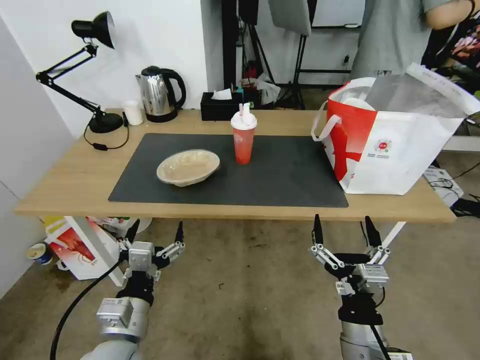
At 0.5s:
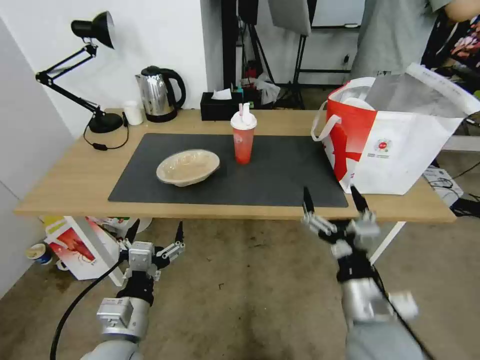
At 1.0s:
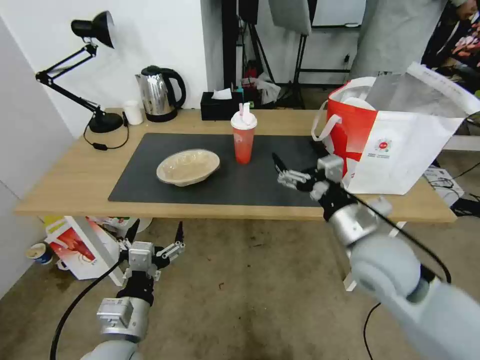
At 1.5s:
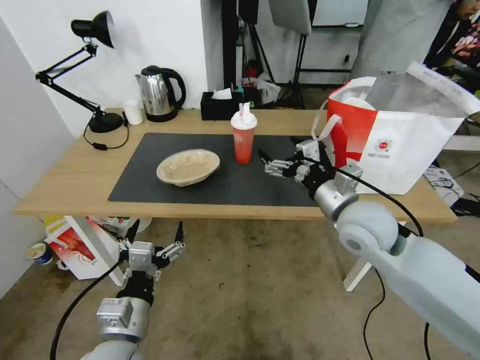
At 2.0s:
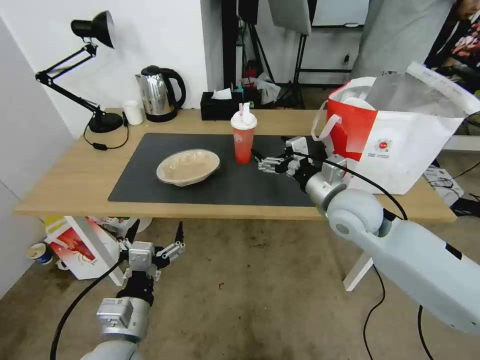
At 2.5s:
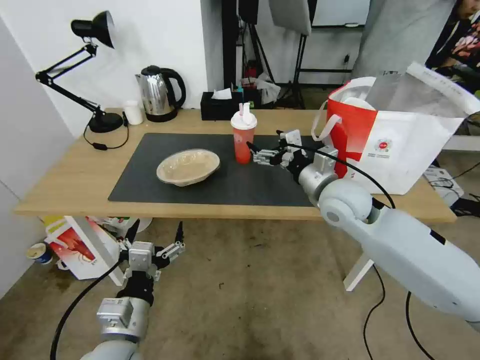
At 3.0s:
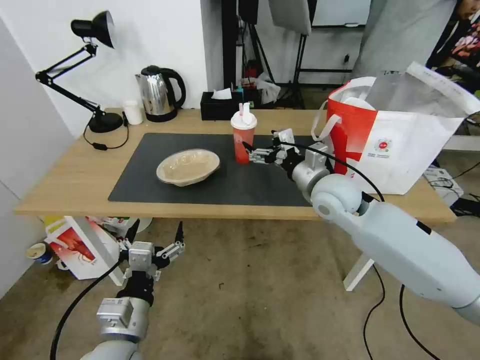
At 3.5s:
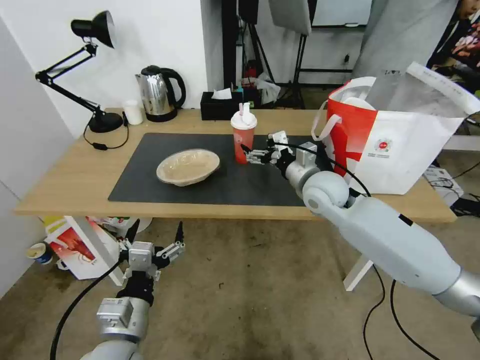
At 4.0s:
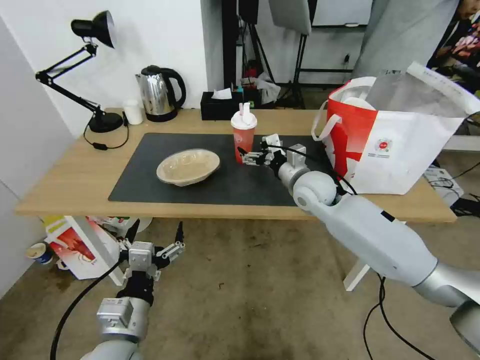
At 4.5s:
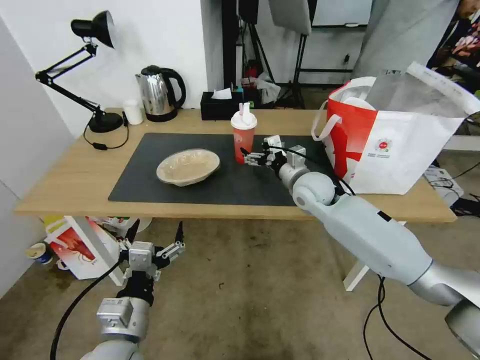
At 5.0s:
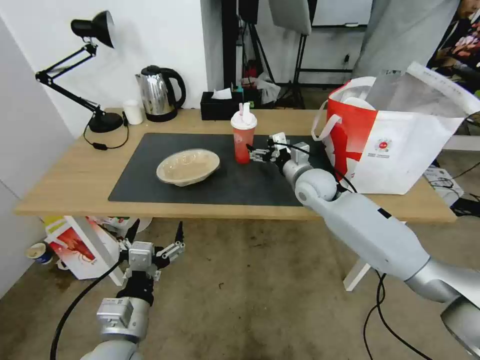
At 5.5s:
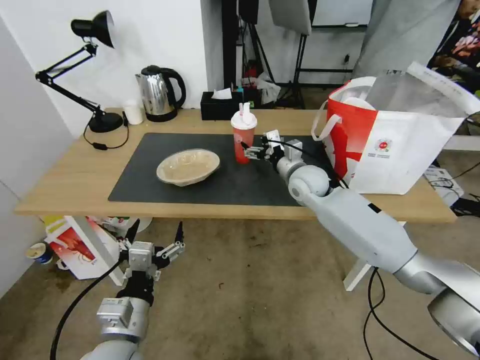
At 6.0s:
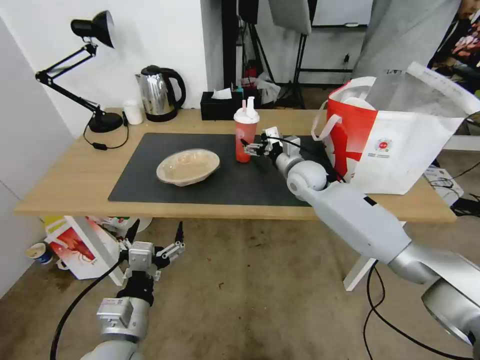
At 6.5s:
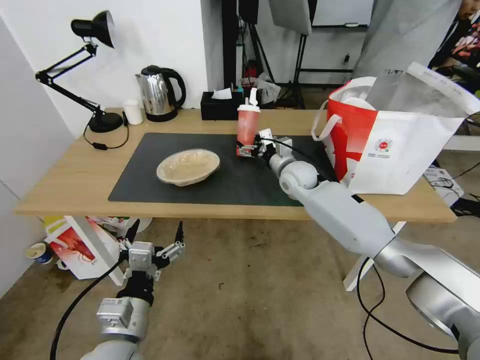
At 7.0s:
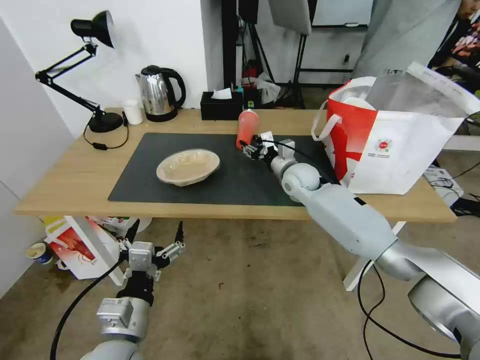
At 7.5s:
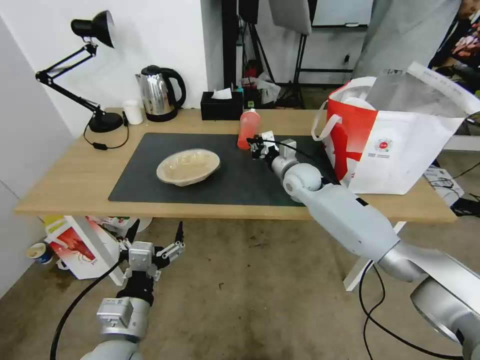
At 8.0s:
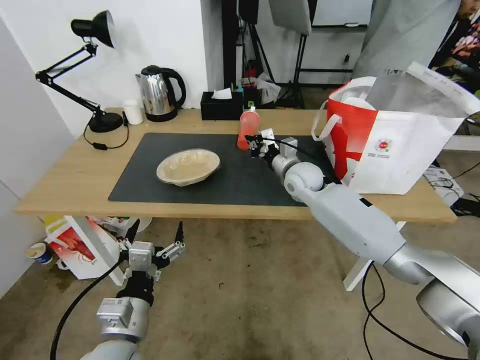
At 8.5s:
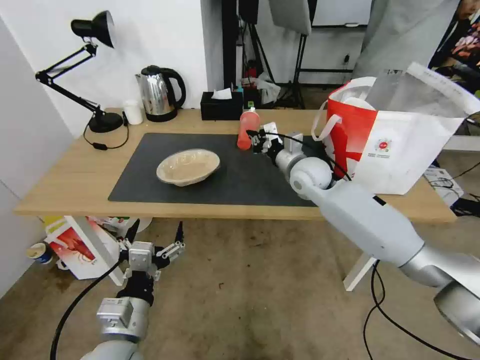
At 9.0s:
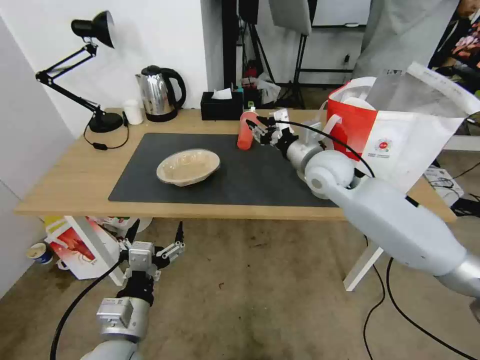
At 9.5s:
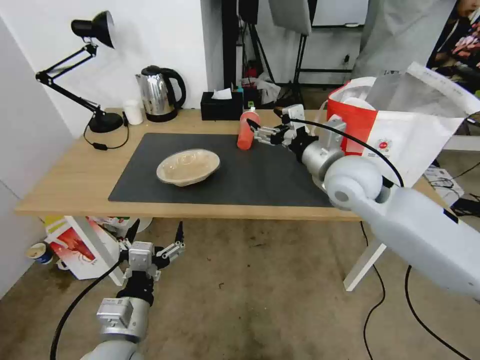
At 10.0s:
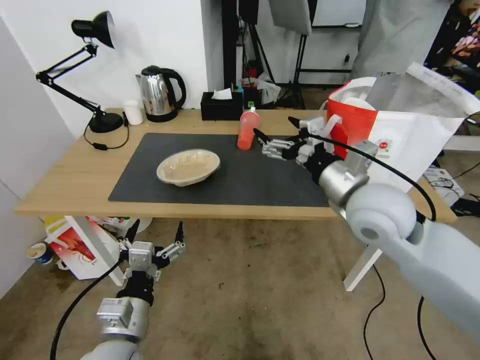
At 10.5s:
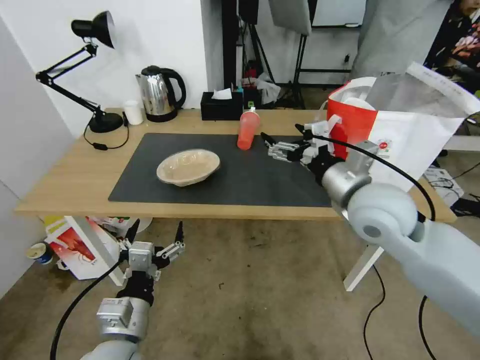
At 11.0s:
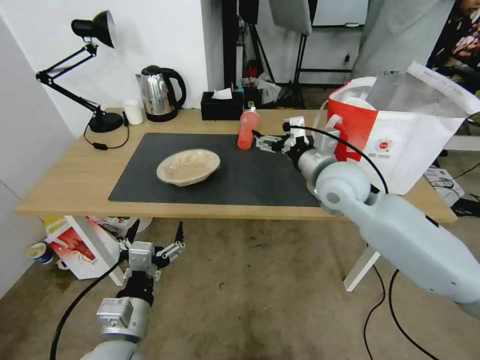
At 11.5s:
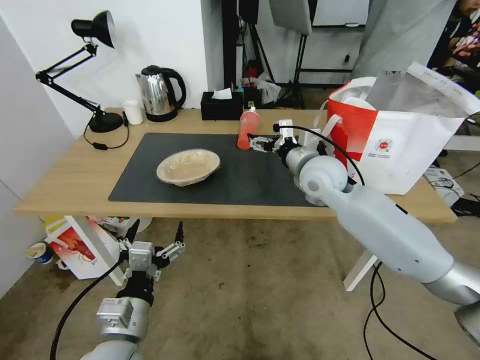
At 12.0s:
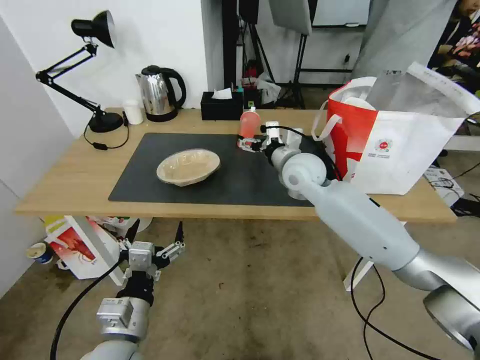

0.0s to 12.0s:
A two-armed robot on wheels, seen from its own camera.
Task of the whole recording: Pick up the trash from the table and place it into the takeout bag.
0.0s to 2.0s: The right gripper goes some 30 cm forward and upward.
2.0s to 4.0s: The right gripper moves forward, about 10 cm.
4.0s to 6.0s: The right gripper moves forward, approximately 5 cm.
6.0s to 8.0s: The right gripper closes its fingers.
8.0s to 10.0s: The right gripper is displaced backward and upward by some 25 cm, and opens.
10.0s to 12.0s: The right gripper goes approximately 20 cm forward and to the left.

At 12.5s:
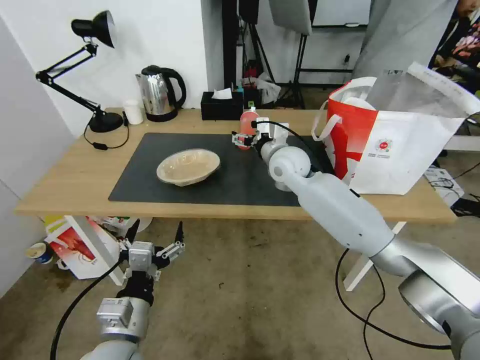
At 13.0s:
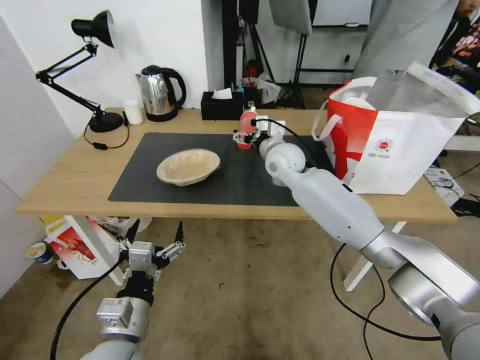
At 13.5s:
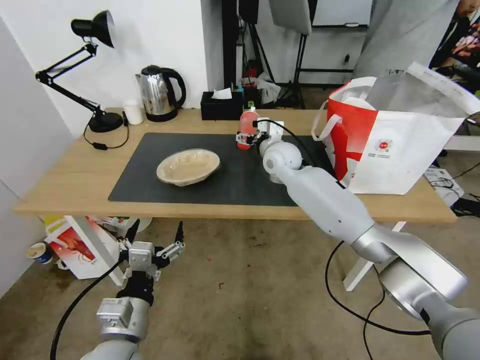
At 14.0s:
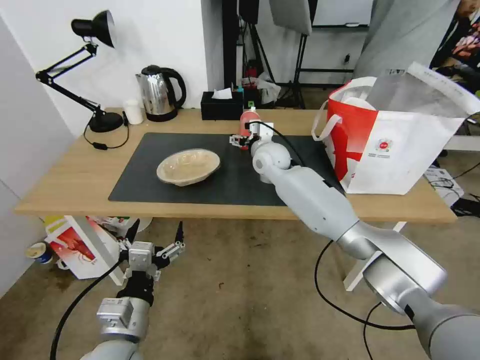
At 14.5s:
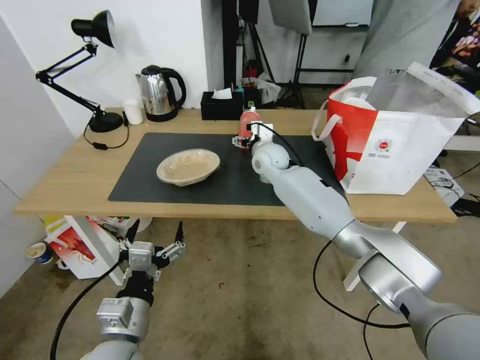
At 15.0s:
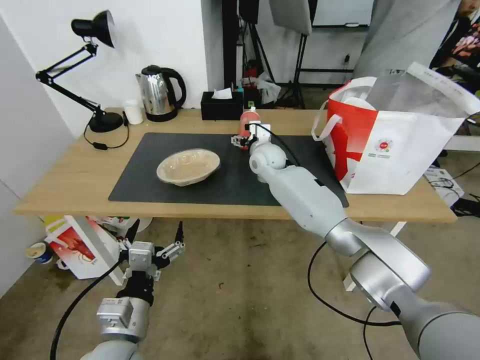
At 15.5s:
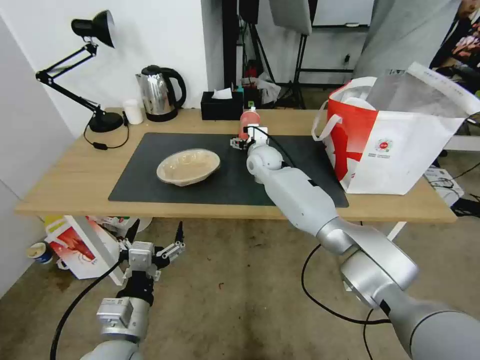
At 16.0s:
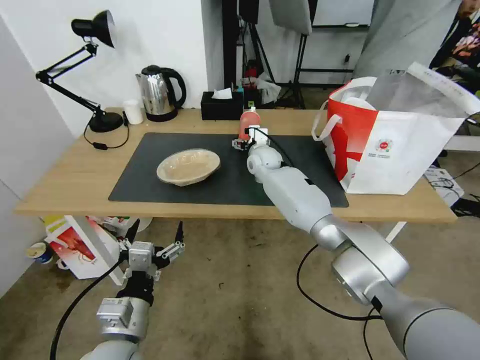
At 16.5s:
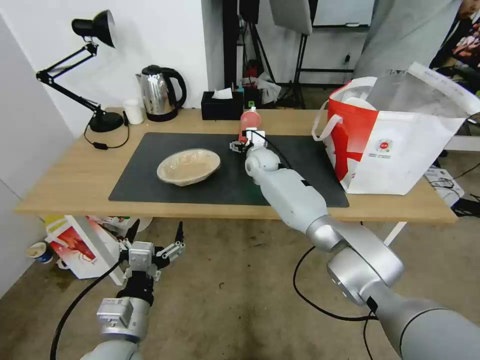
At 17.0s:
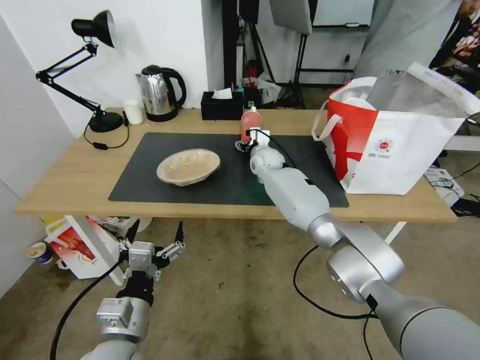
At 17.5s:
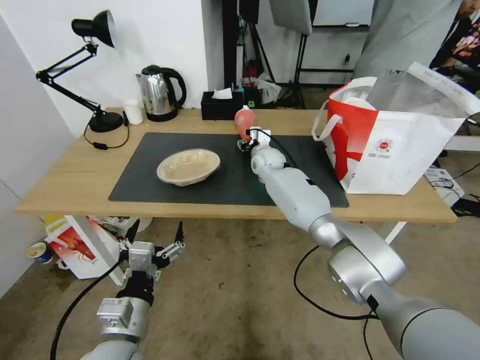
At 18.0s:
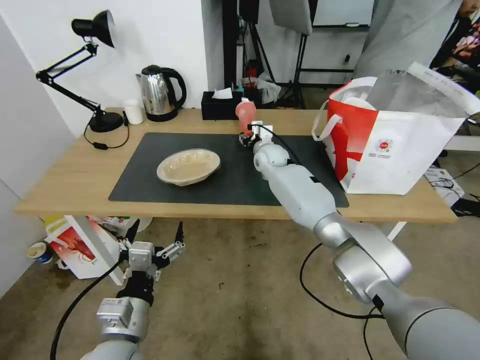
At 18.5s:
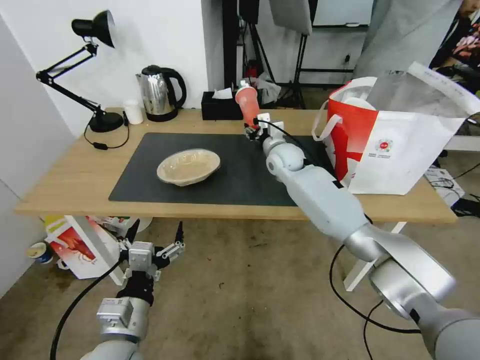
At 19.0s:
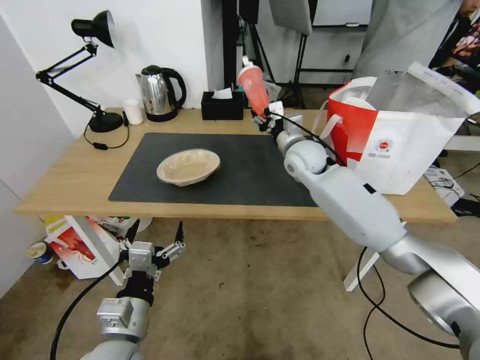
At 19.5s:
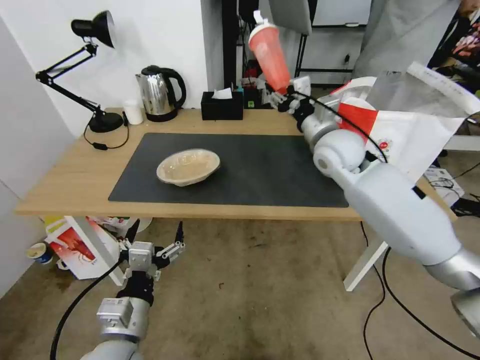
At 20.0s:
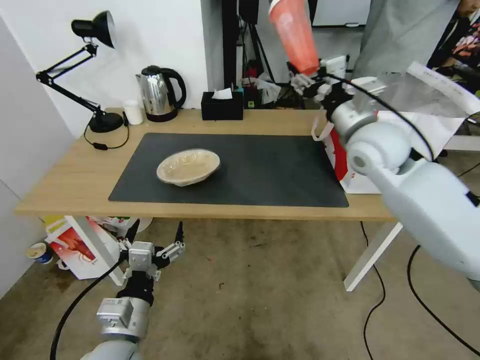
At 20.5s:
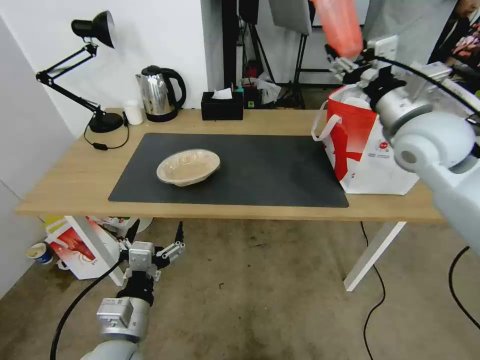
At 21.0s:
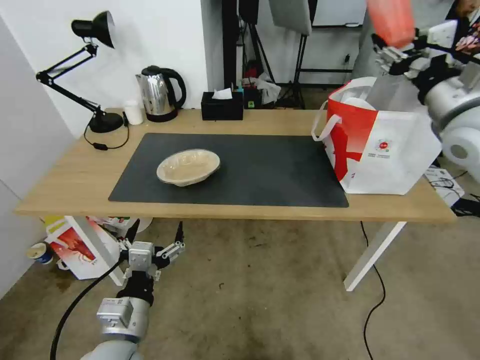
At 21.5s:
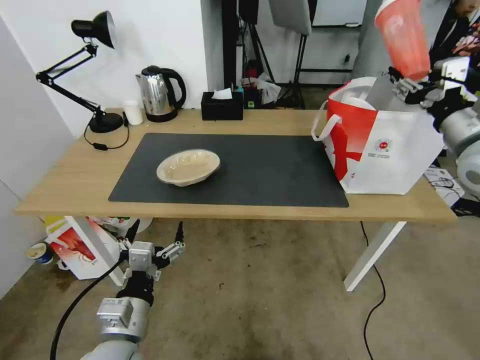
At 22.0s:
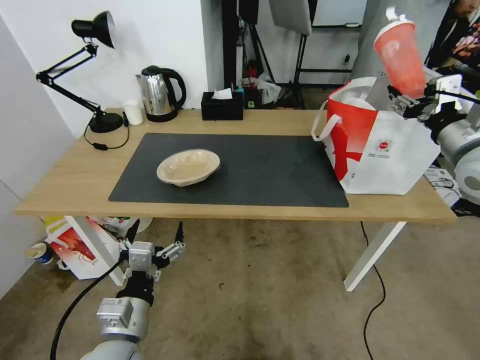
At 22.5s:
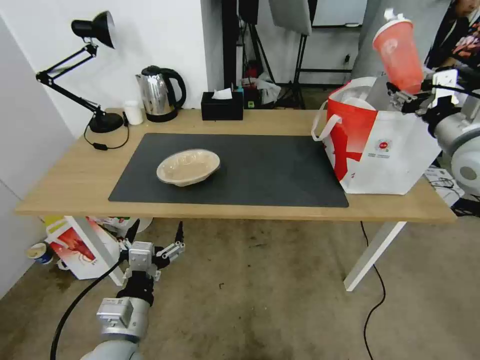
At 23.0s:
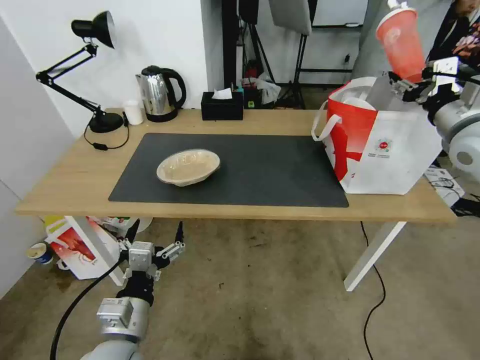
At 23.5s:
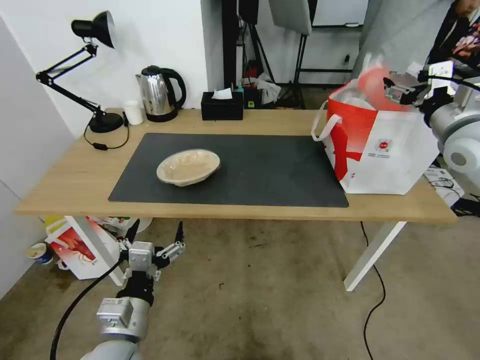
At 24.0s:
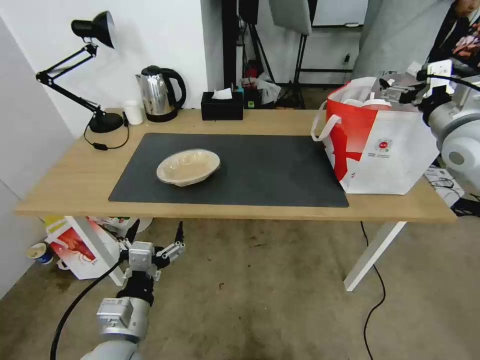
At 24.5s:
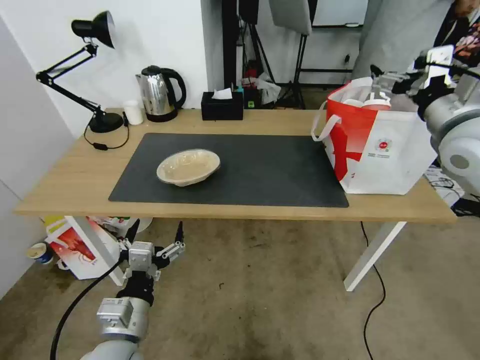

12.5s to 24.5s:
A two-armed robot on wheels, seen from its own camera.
Task of the whole recording: Pick up the trash from the table and place it into the takeout bag.
12.5s to 14.5s: The right gripper moves forward, some 5 cm.
14.5s to 16.5s: The right gripper changes place by some 5 cm.
16.5s to 18.5s: The right gripper moves to the right, some 5 cm, and closes up.
18.5s to 20.5s: The right gripper goes about 30 cm upward, to the right and backward.
20.5s to 22.5s: The right gripper travels to the right by roughly 10 cm.
22.5s to 24.5s: The right gripper opens.

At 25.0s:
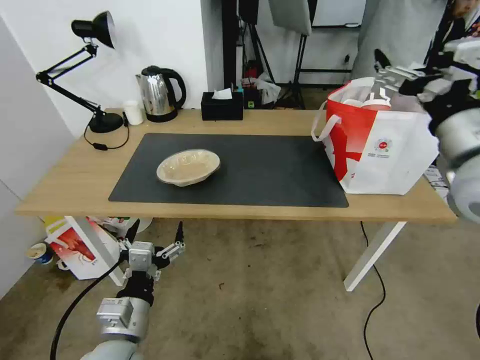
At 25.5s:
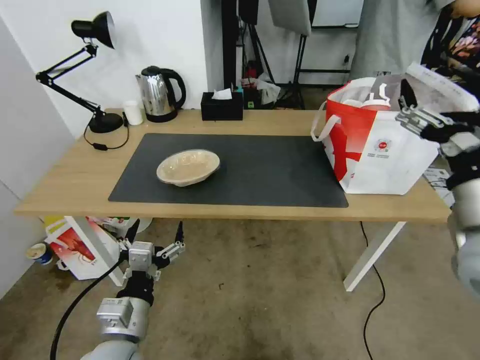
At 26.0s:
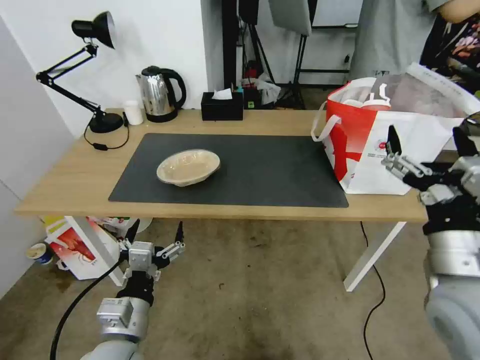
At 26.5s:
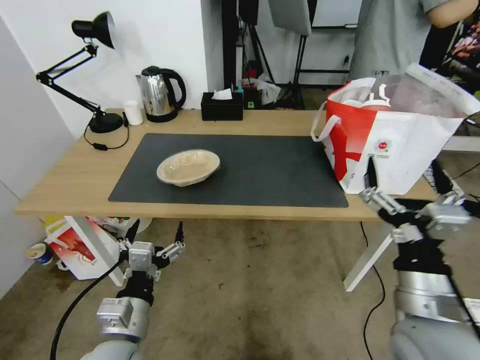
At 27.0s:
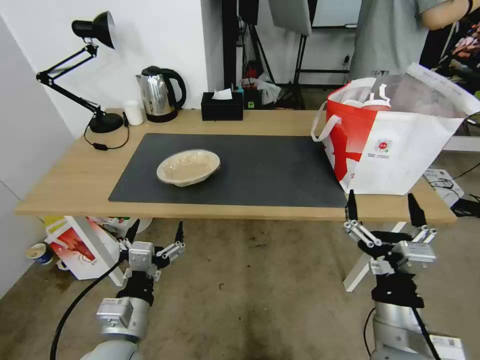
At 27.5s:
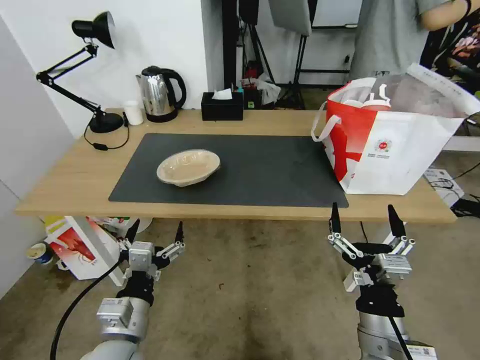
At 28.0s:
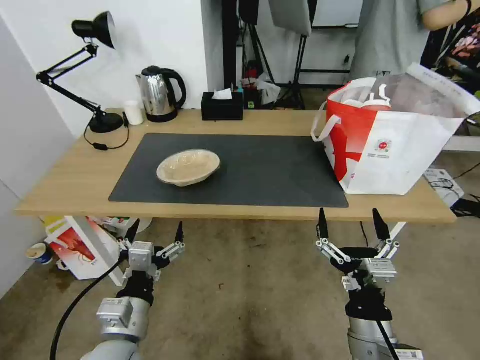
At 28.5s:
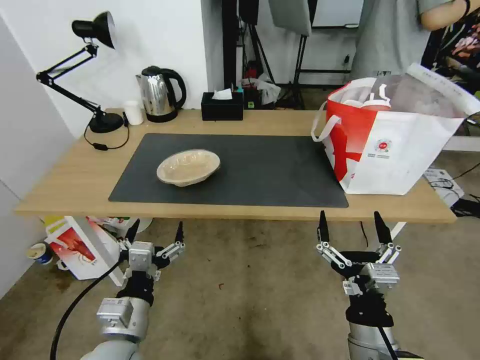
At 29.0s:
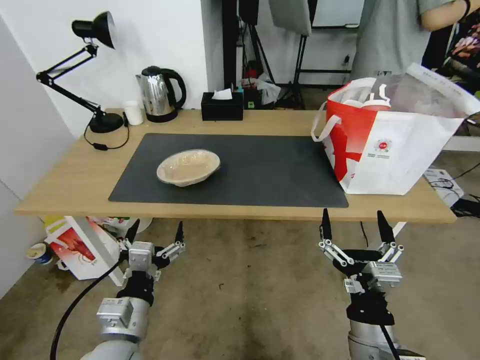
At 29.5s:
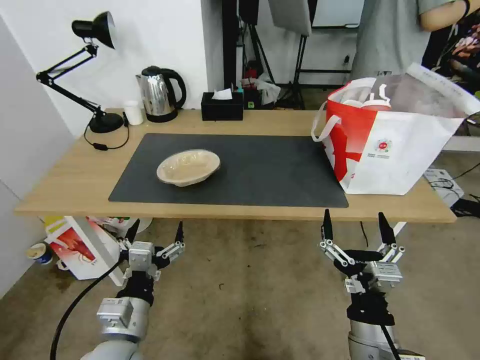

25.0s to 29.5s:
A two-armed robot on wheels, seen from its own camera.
Task of the whole recording: Pick up the trash from the table and place it into the takeout bag.
25.0s to 27.0s: The right gripper moves downward and backward, roughly 30 cm.
27.0s to 29.5s: The grippers stay close to where they were, moving slightly.
